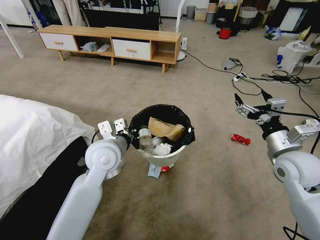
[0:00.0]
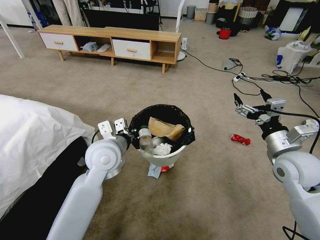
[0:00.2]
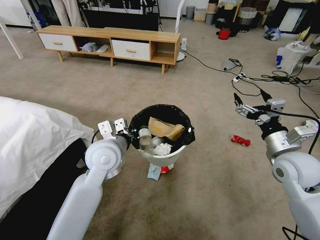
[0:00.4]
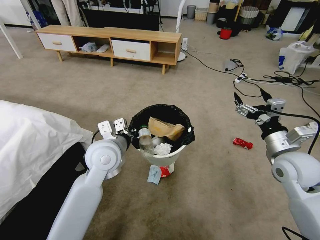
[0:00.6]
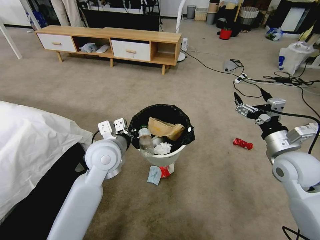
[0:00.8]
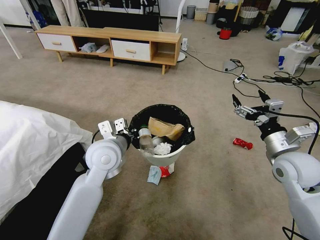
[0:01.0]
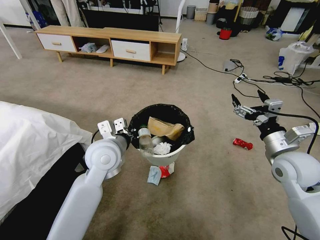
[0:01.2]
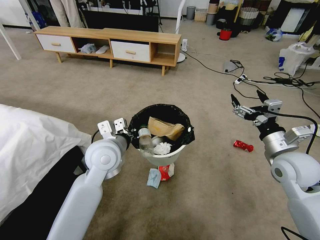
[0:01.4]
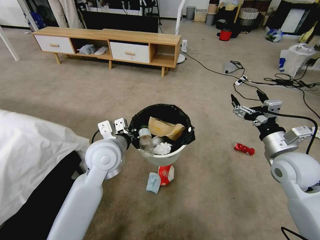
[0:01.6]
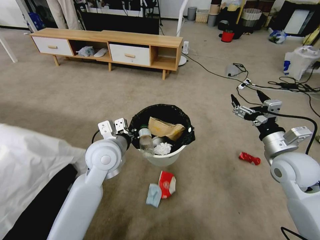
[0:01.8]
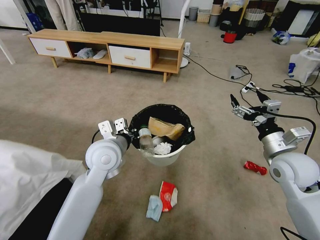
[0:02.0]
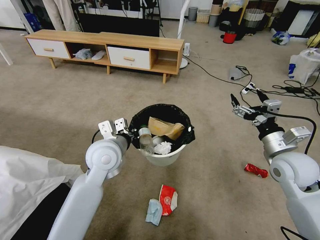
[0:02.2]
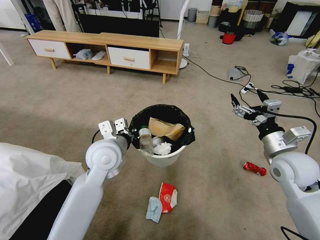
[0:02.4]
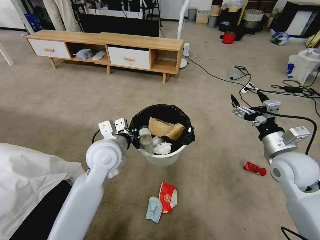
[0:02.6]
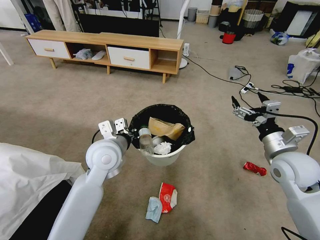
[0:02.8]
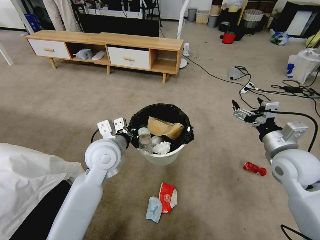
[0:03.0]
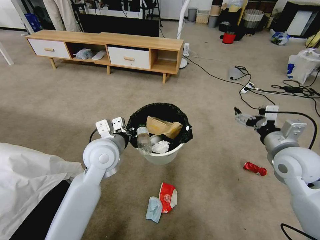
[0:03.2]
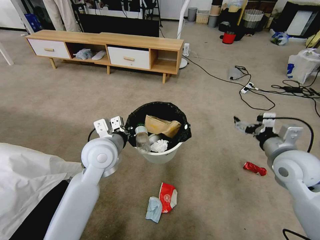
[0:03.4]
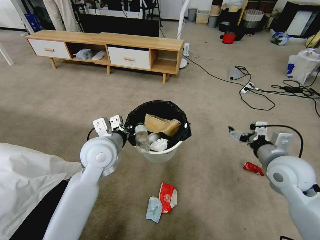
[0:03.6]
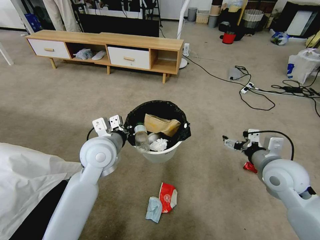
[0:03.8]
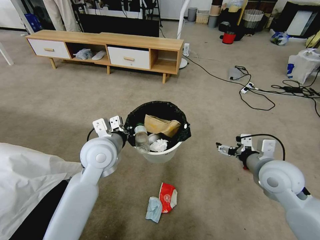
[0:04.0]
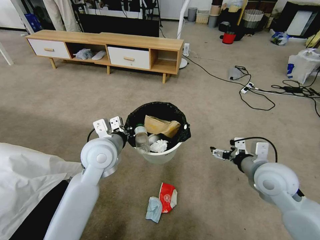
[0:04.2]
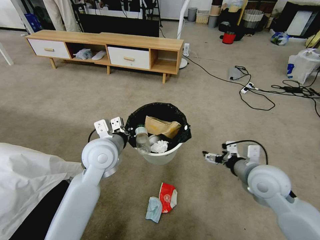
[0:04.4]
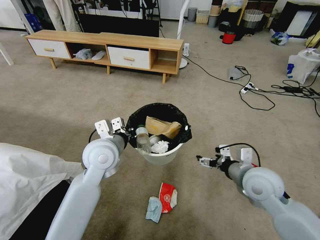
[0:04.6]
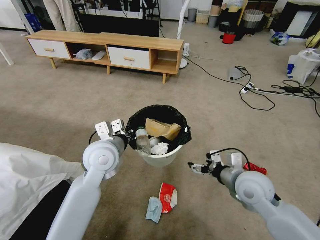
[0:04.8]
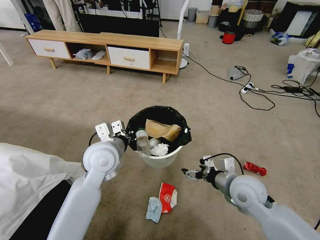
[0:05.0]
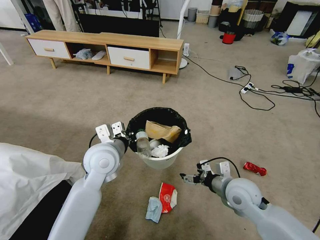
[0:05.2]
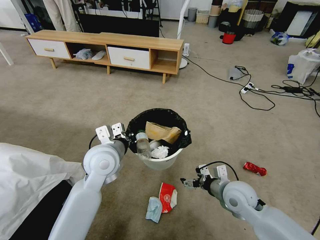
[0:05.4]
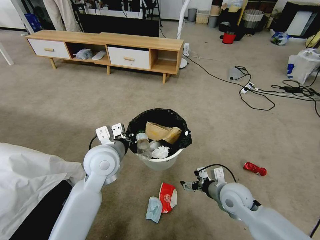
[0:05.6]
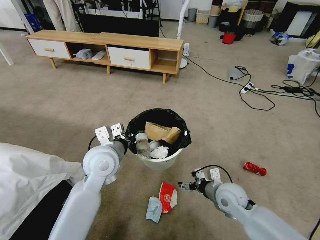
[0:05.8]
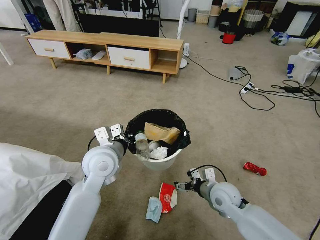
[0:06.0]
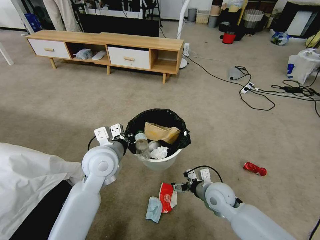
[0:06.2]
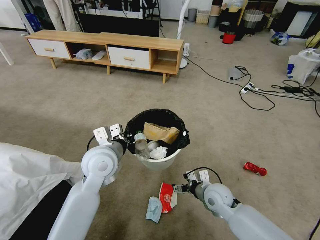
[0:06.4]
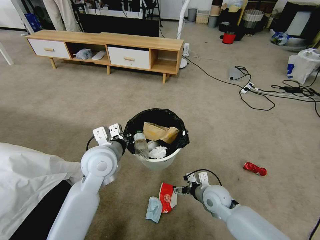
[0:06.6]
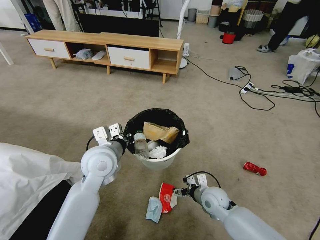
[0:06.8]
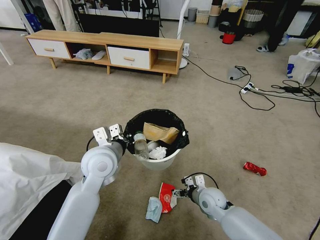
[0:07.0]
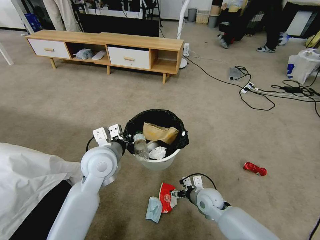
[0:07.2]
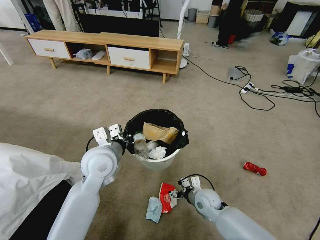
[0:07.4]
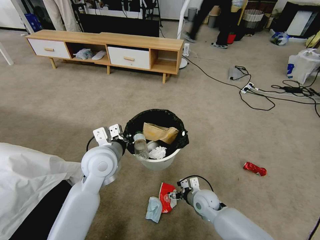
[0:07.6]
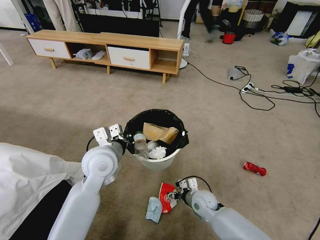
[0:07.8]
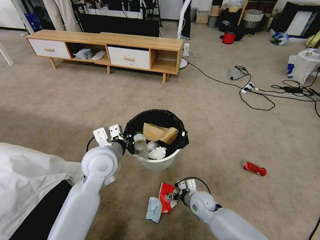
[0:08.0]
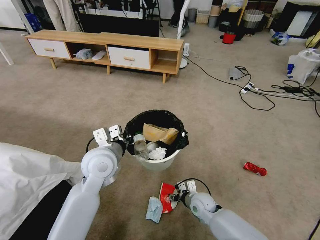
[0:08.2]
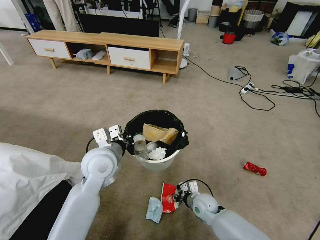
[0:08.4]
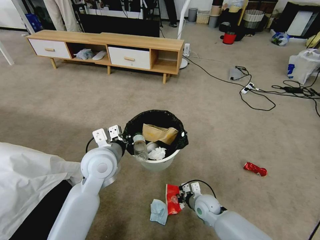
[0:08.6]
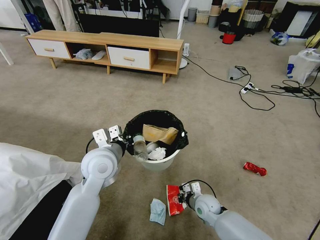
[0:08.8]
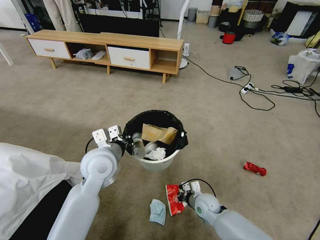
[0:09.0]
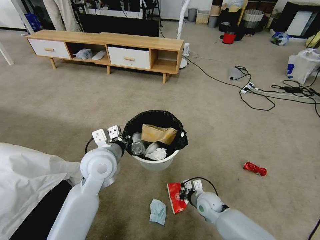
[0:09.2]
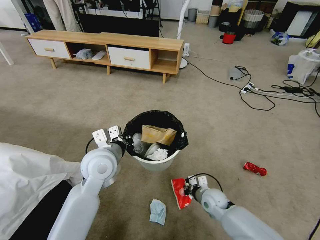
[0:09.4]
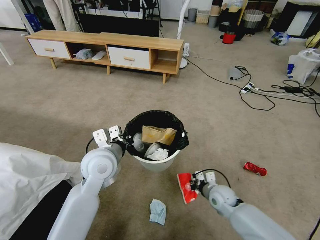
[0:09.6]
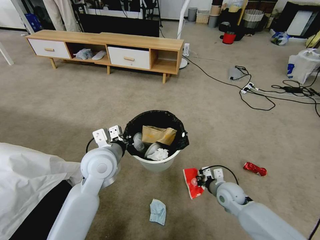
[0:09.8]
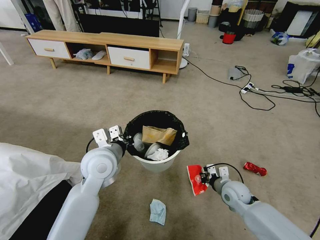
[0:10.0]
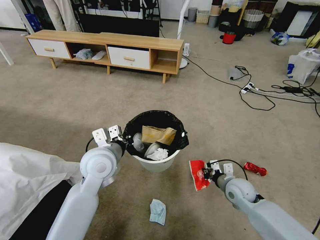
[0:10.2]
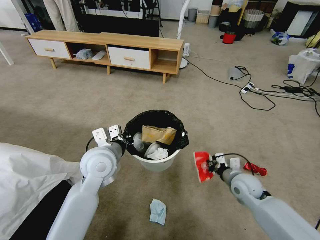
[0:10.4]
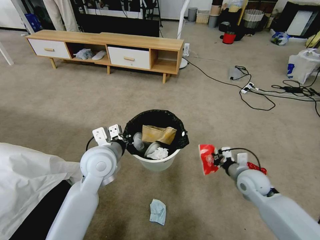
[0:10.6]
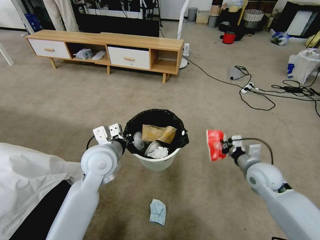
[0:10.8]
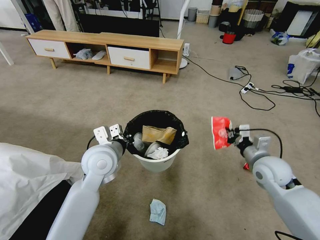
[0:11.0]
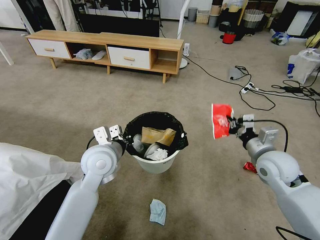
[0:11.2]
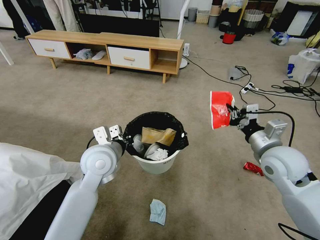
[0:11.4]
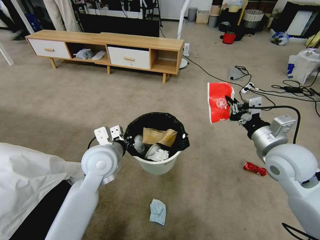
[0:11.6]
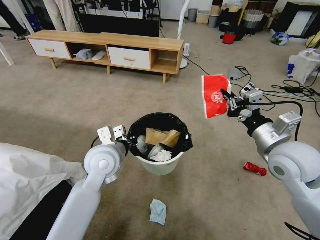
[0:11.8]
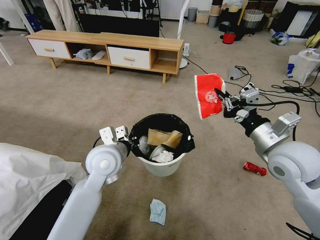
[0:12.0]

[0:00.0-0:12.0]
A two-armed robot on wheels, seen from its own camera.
Task of the whole recording: Pick up the trash bin and place the garbage on the floor into it.
0:03.0 to 0:04.4: The right gripper shifts approximately 5 cm to the left.
0:04.4 to 0:06.0: The right gripper is displaced downward and to the left by about 15 cm.
0:06.0 to 0:07.6: The right gripper is displaced downward and to the left by some 10 cm.
0:07.6 to 0:09.0: The right gripper closes up.
0:09.0 to 0:10.4: The right gripper goes approximately 15 cm upward and to the right.
0:10.4 to 0:12.0: The right gripper travels upward by some 25 cm.

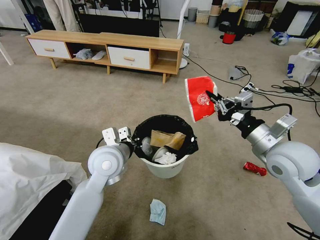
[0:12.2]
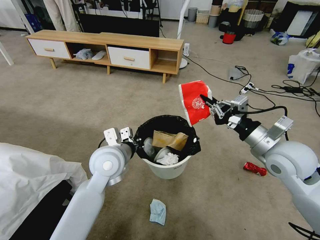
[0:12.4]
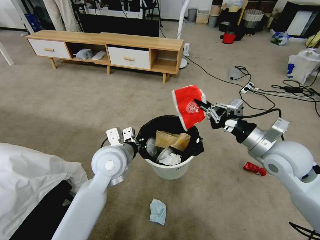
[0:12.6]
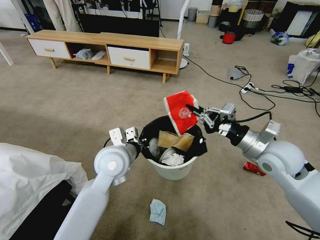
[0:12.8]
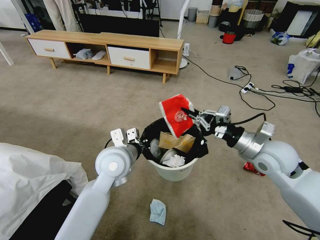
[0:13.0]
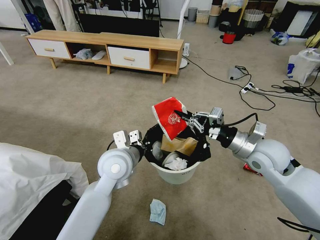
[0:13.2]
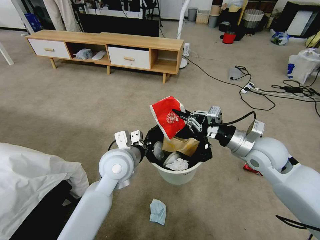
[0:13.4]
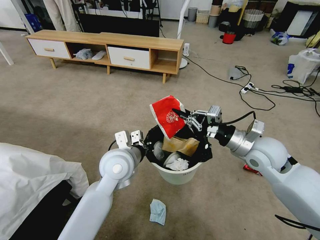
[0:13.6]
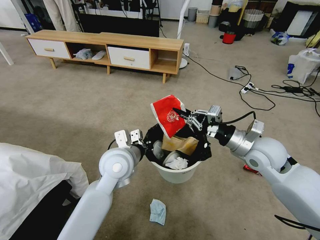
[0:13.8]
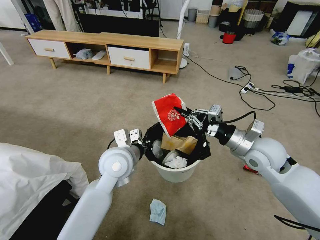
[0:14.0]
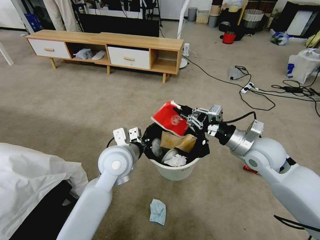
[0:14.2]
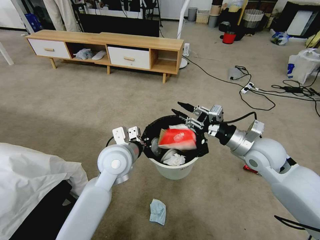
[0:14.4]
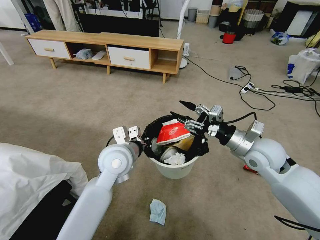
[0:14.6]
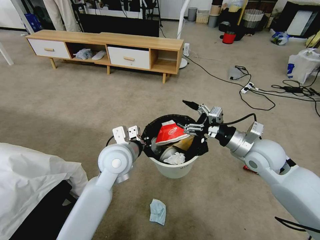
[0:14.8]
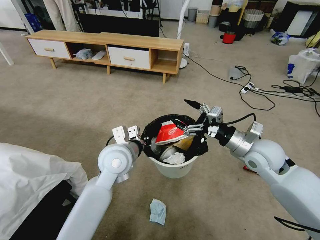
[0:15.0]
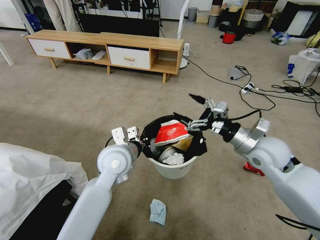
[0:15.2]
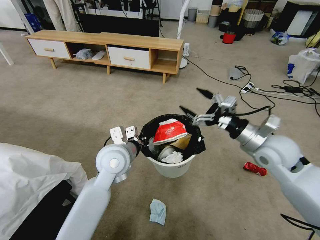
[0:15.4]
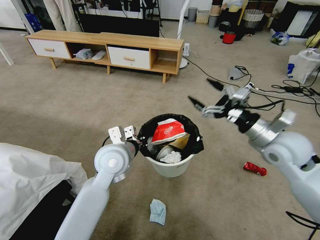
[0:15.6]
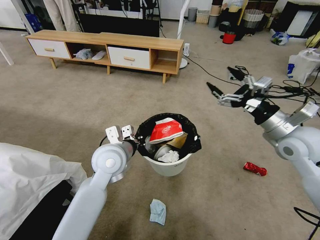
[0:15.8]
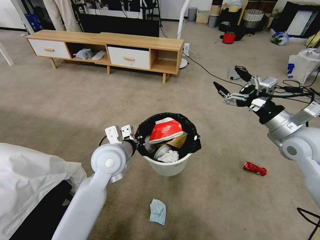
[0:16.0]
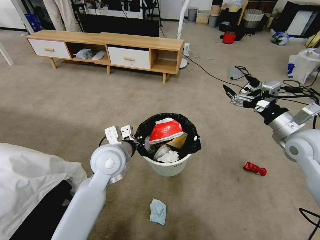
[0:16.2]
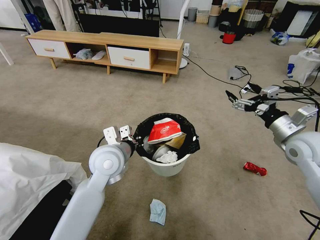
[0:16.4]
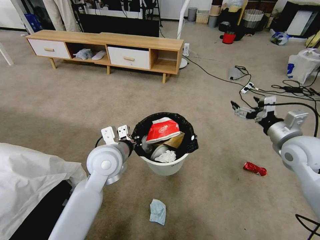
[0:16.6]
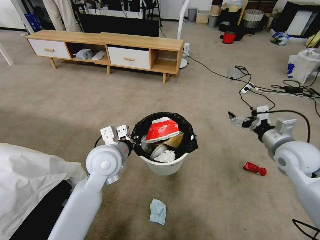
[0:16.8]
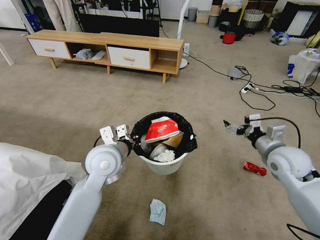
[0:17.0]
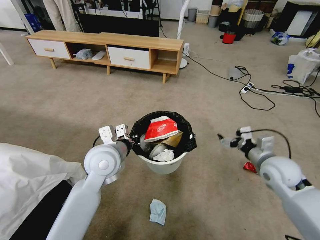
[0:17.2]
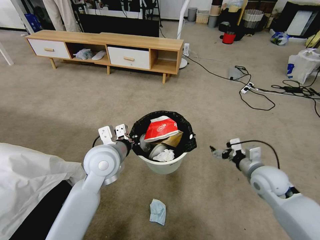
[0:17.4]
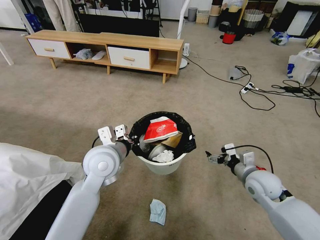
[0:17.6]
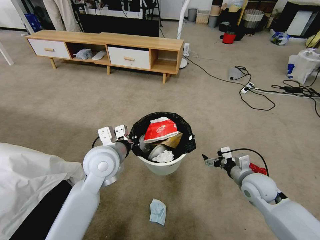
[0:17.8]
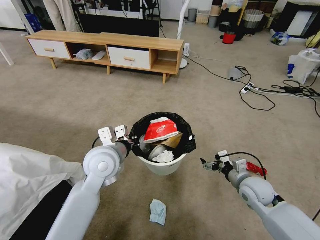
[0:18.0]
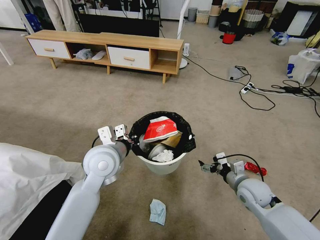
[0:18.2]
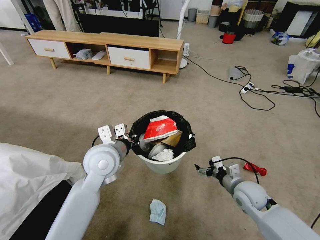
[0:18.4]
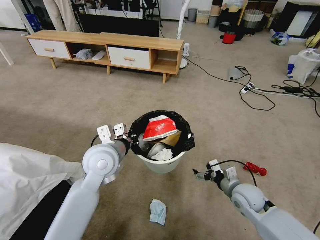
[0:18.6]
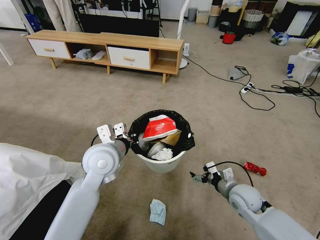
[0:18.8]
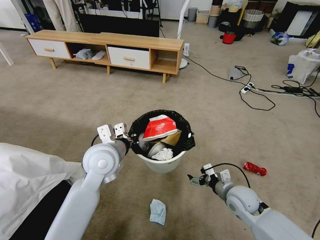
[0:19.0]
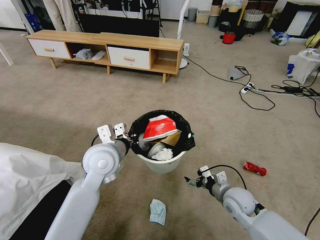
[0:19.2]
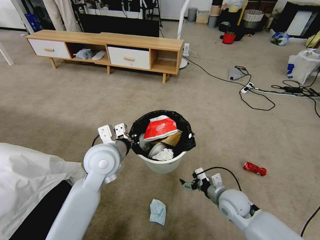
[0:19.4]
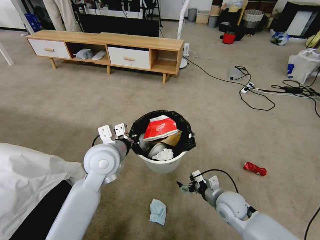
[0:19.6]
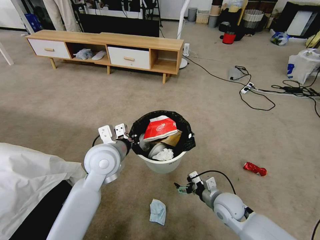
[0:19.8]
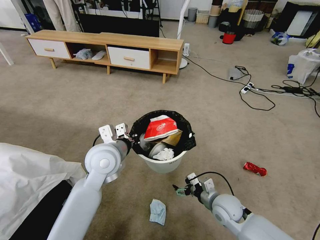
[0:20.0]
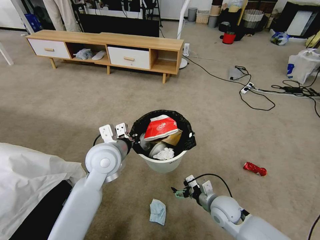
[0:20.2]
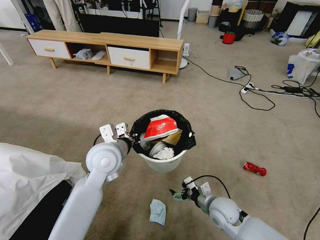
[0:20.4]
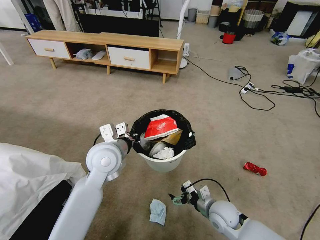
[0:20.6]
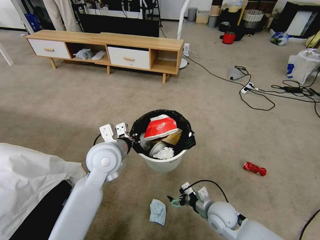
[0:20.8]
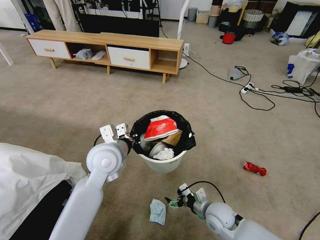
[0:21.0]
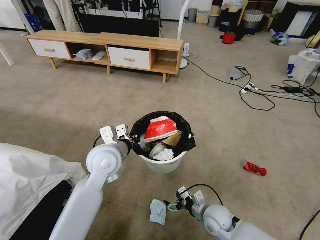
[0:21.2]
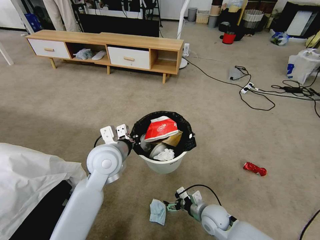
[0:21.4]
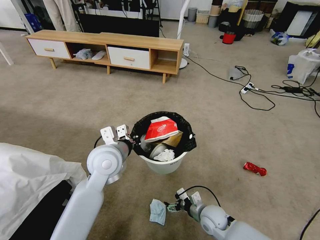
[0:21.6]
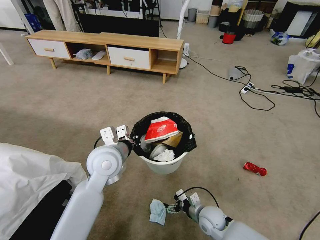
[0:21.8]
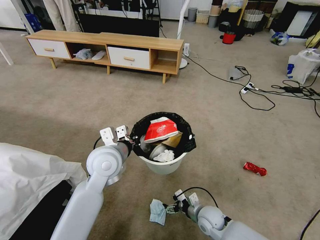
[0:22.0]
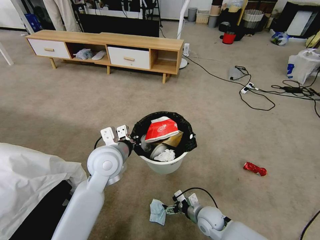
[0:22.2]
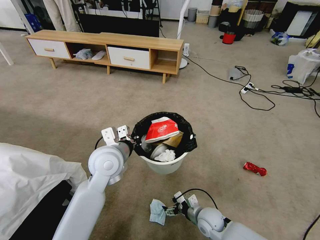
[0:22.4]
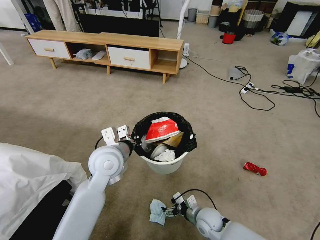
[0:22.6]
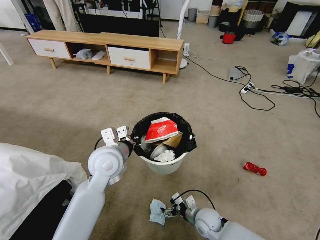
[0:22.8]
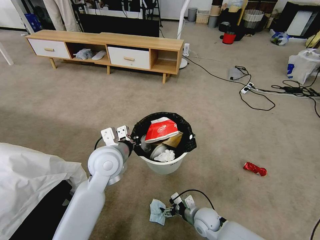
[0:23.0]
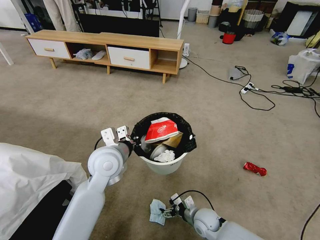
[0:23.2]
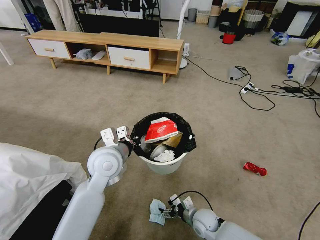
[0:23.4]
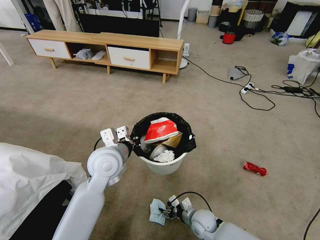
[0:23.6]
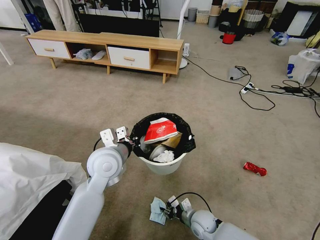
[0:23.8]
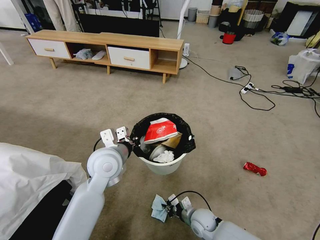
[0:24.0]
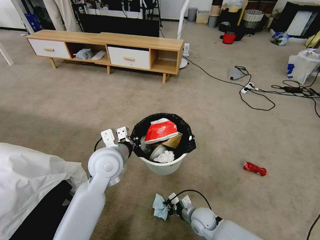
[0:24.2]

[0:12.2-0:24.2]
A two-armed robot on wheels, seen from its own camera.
Task of the whole recording: Pick up the trash bin and place the garbage on the floor into it.
0:12.2 to 0:13.8: The right gripper shifts by approximately 5 cm.
0:13.8 to 0:15.2: The right gripper opens.
0:15.2 to 0:16.6: The right gripper is displaced to the right by about 10 cm.
0:16.6 to 0:18.2: The right gripper goes about 20 cm downward and to the left.
0:18.2 to 0:19.8: The right gripper travels to the left by roughly 10 cm.
0:19.8 to 0:21.2: The right gripper travels downward by about 5 cm.
0:21.2 to 0:22.6: There are only small adjustments of the grippers.
0:22.6 to 0:24.2: The right gripper closes.
